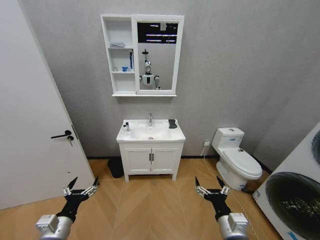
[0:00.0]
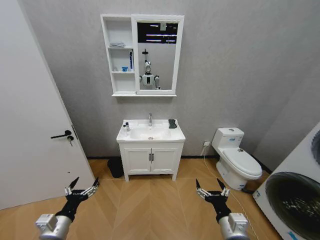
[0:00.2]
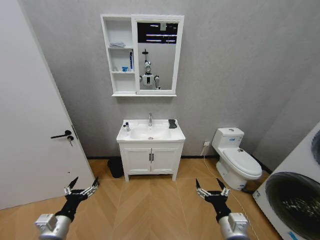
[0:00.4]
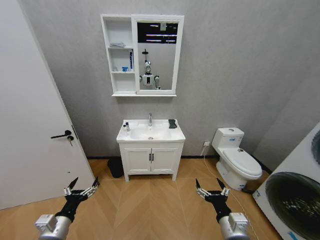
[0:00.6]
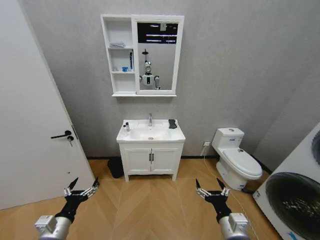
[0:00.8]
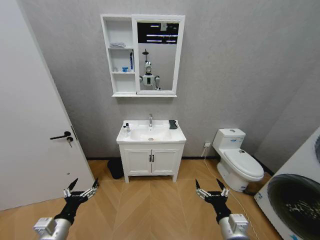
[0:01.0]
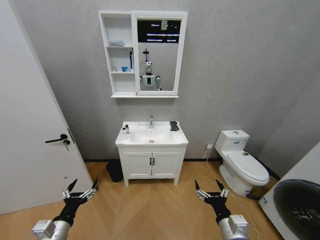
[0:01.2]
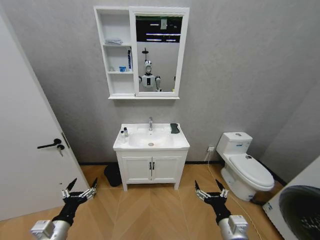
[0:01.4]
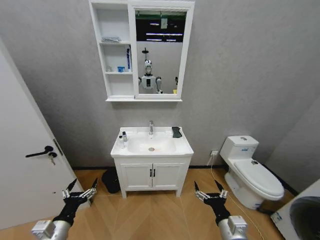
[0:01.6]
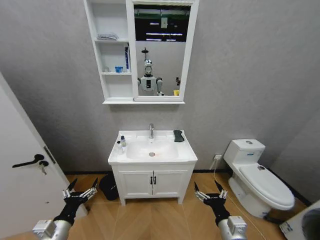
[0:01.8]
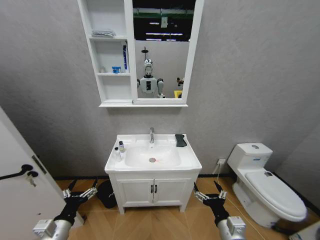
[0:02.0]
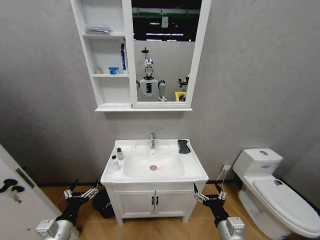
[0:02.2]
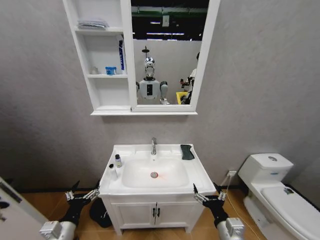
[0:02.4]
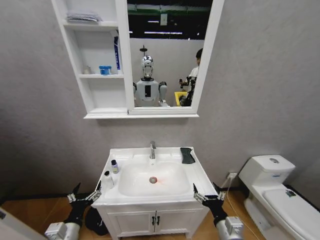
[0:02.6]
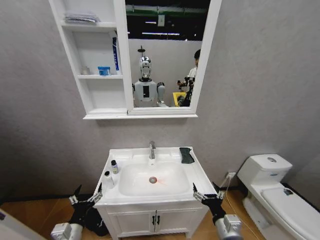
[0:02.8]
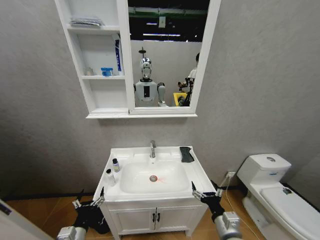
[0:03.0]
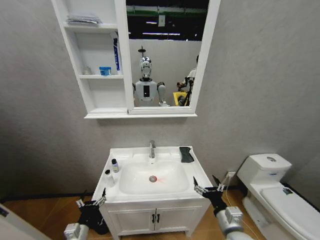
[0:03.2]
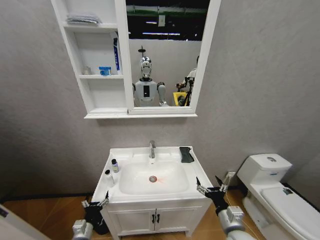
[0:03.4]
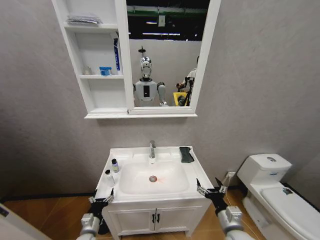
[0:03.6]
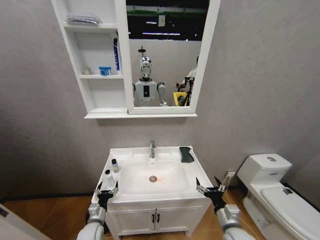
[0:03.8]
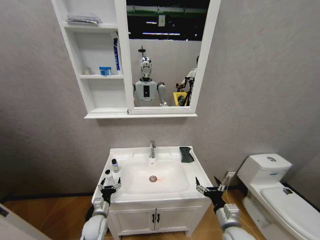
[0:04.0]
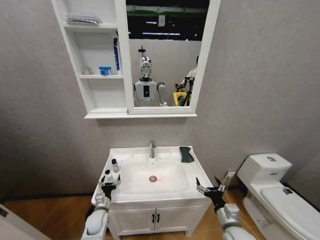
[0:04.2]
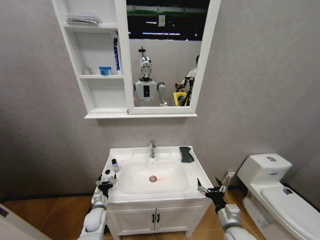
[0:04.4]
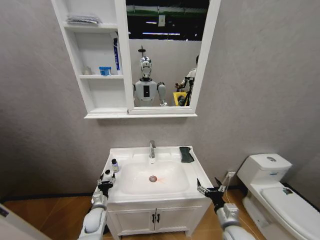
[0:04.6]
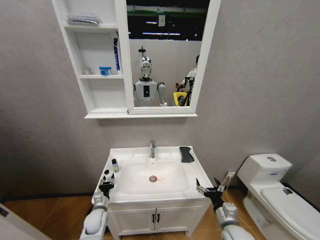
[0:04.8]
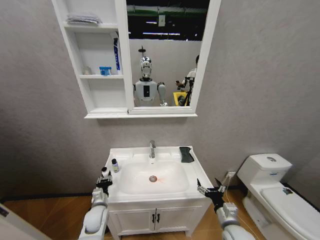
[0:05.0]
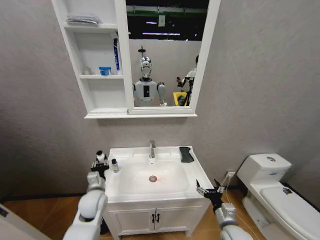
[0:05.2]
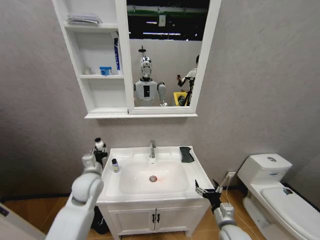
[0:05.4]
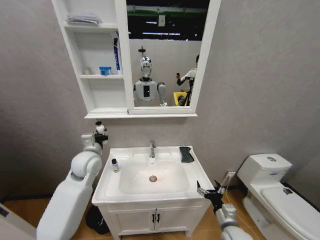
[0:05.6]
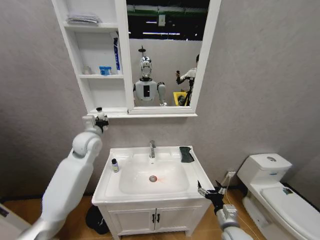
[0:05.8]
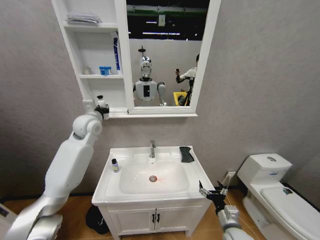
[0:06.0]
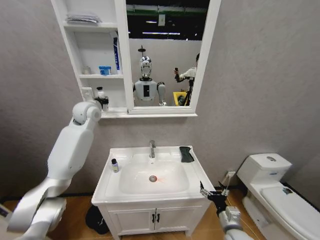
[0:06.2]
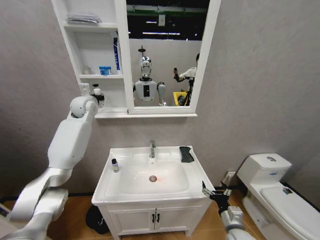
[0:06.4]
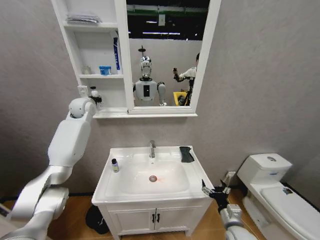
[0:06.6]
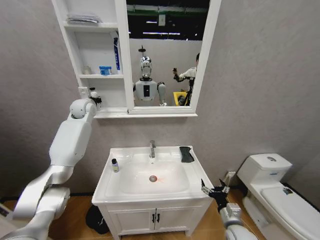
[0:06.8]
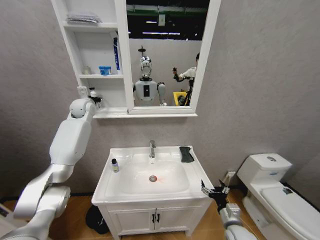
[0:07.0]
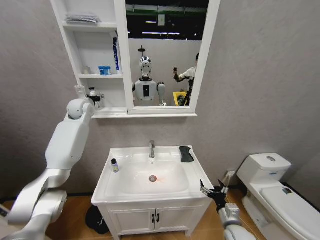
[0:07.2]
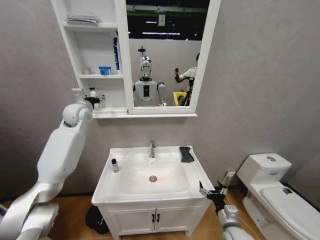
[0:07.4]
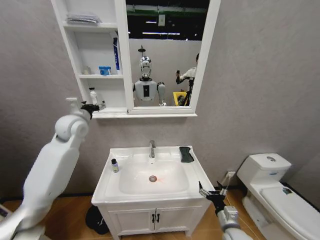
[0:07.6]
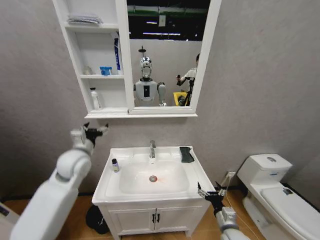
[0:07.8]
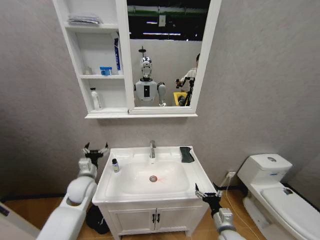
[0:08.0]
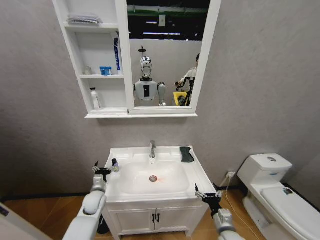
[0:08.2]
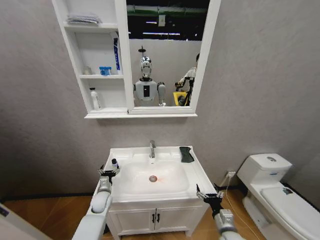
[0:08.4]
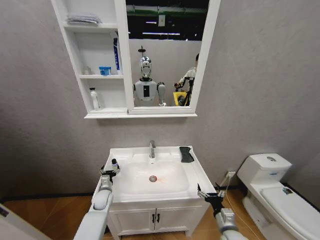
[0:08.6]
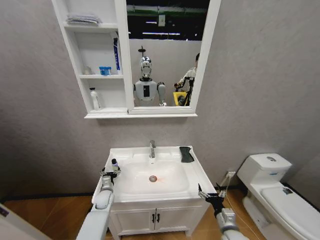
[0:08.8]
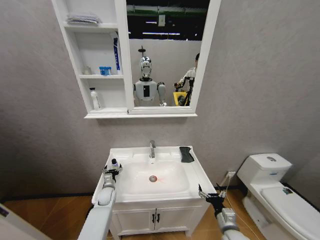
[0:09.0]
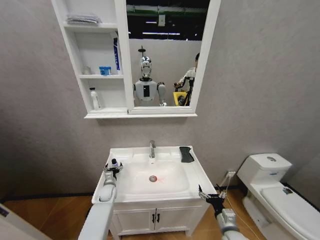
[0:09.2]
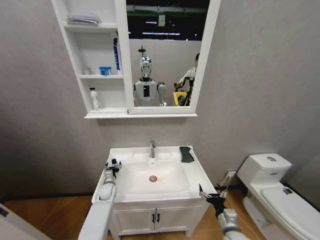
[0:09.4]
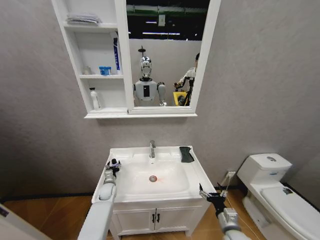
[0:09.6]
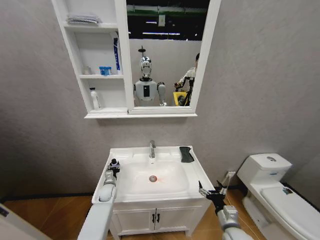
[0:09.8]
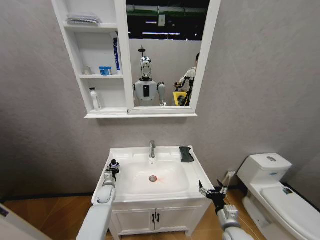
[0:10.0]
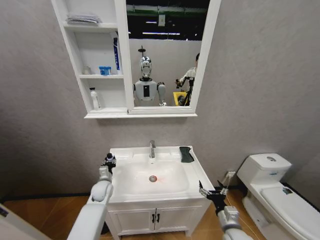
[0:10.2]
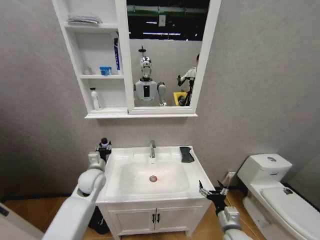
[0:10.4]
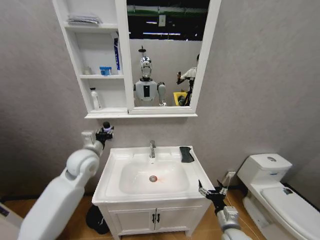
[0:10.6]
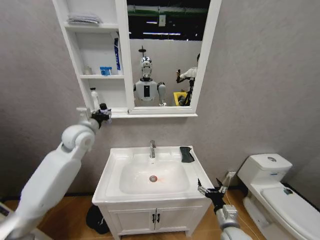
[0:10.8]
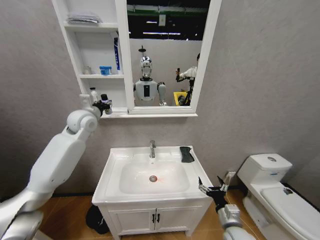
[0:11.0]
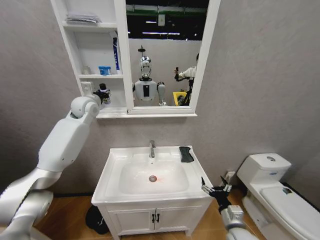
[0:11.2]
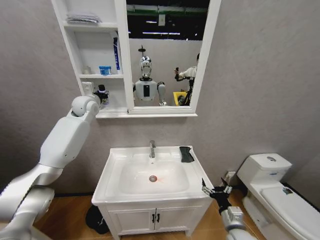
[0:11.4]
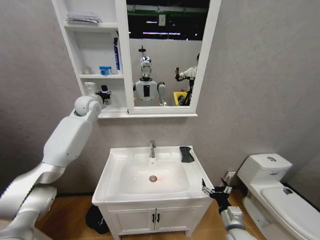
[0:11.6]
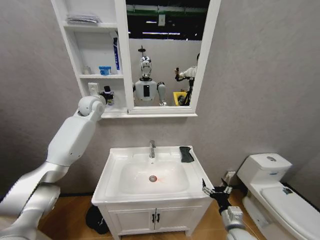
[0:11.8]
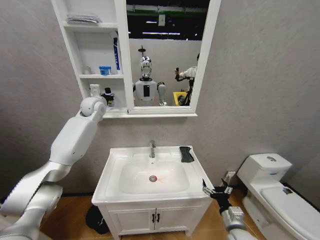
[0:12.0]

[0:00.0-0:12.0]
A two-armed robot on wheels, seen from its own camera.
Task of the whole recording: Move facial cleanser and shampoo from washbasin to cabinet, then wipe washbasin with towel.
0:01.6 to 0:03.0: The left gripper is displaced downward by approximately 10 cm.
0:03.0 to 0:04.4: The right gripper moves roughly 5 cm; the left gripper goes about 20 cm forward and downward.
0:04.4 to 0:06.0: The left gripper shifts roughly 40 cm upward, and closes its fingers.
0:06.0 to 0:07.6: The left gripper travels backward by some 5 cm, and opens up.
0:07.6 to 0:09.0: The left gripper travels downward by some 40 cm.
0:09.0 to 0:10.4: The left gripper shifts some 20 cm upward, and closes.
0:10.4 to 0:12.0: The left gripper travels upward and forward by approximately 30 cm.

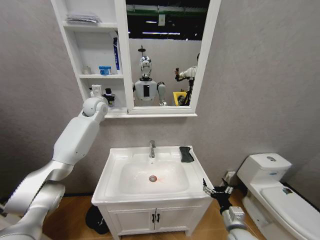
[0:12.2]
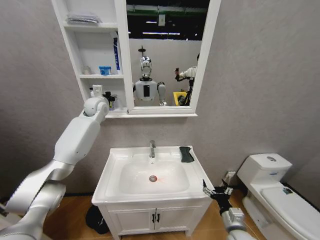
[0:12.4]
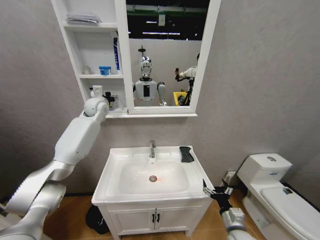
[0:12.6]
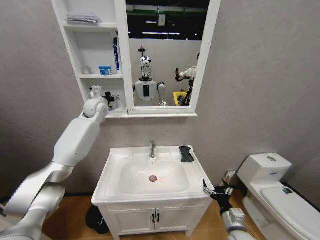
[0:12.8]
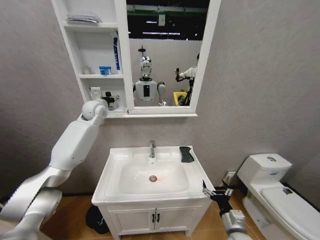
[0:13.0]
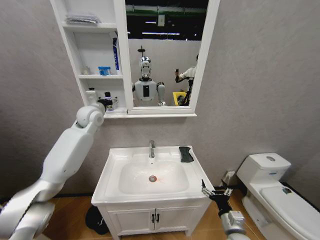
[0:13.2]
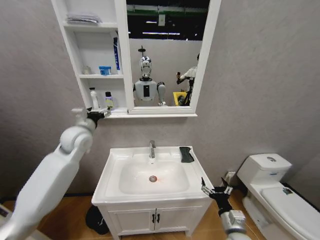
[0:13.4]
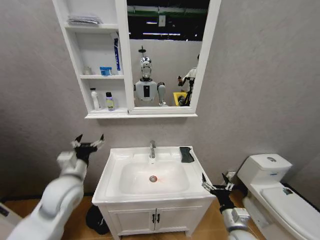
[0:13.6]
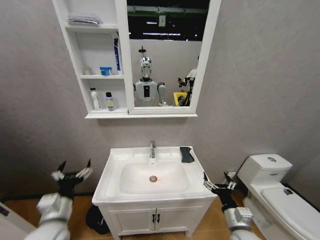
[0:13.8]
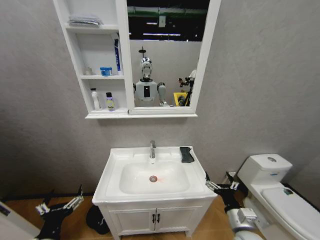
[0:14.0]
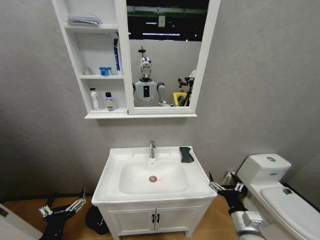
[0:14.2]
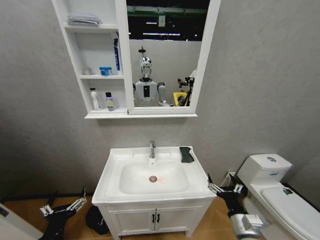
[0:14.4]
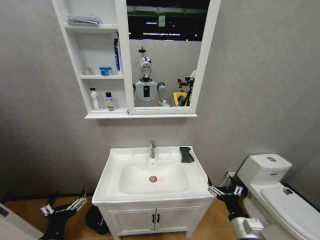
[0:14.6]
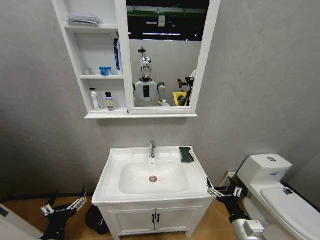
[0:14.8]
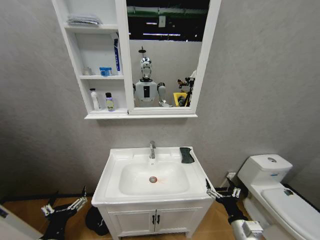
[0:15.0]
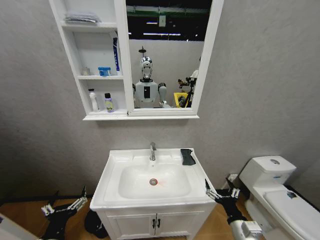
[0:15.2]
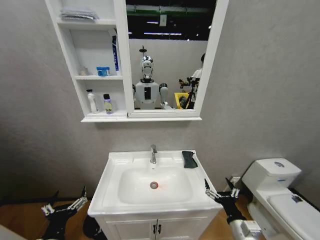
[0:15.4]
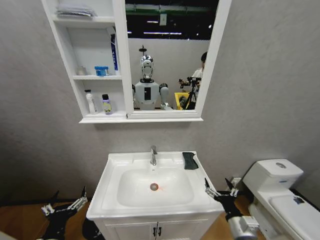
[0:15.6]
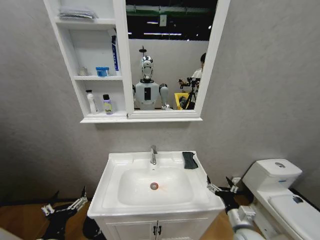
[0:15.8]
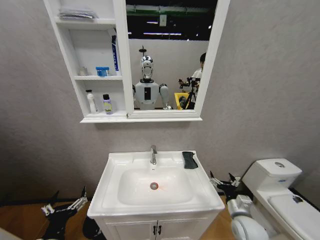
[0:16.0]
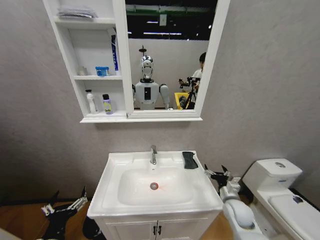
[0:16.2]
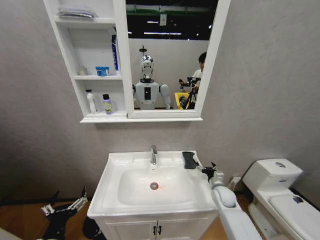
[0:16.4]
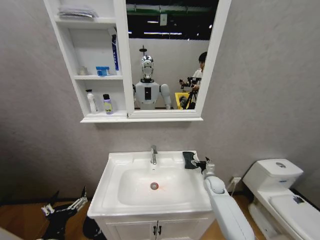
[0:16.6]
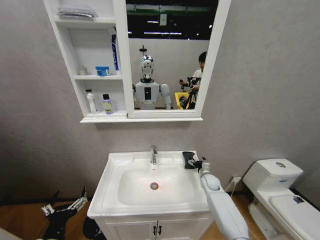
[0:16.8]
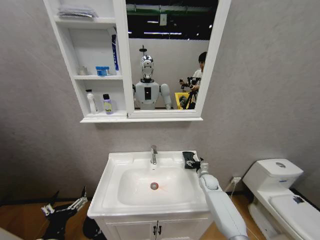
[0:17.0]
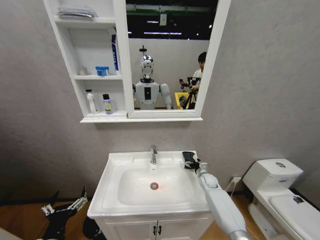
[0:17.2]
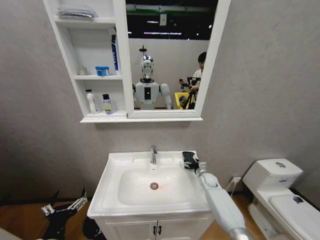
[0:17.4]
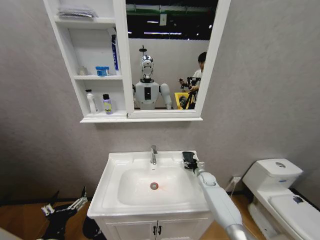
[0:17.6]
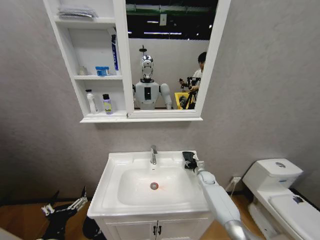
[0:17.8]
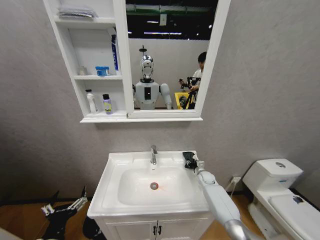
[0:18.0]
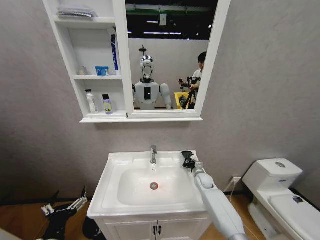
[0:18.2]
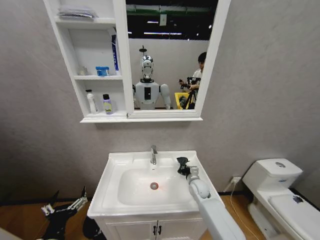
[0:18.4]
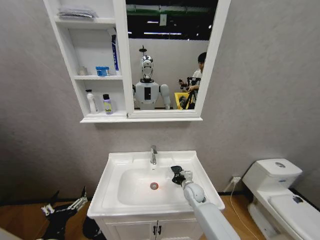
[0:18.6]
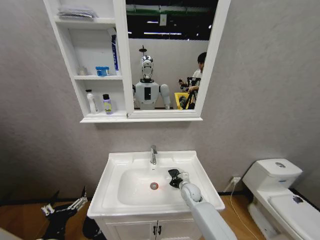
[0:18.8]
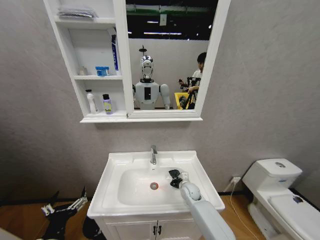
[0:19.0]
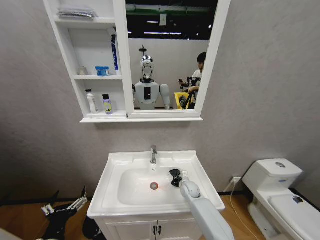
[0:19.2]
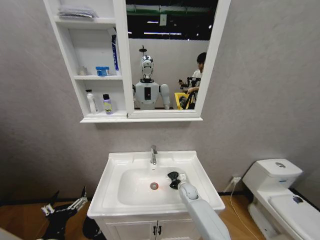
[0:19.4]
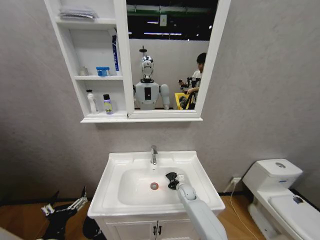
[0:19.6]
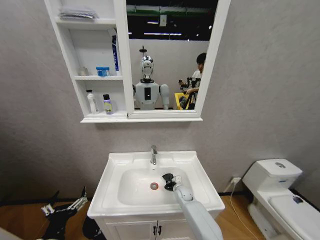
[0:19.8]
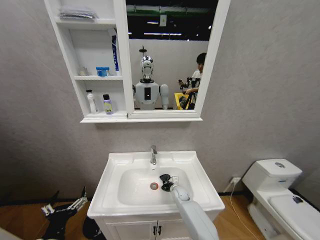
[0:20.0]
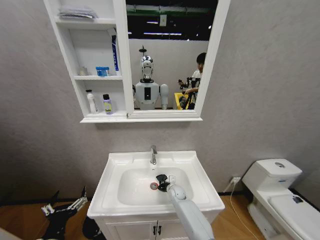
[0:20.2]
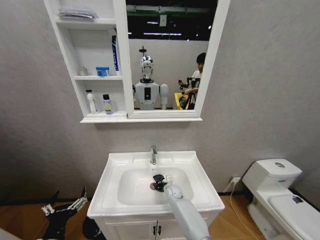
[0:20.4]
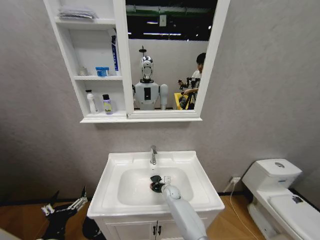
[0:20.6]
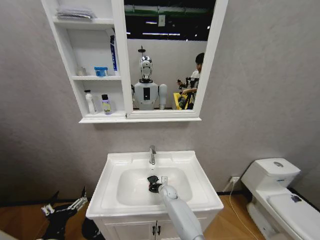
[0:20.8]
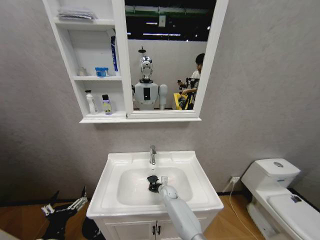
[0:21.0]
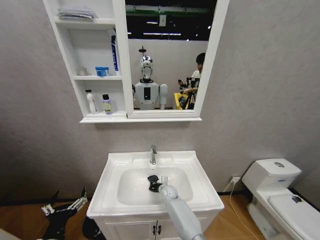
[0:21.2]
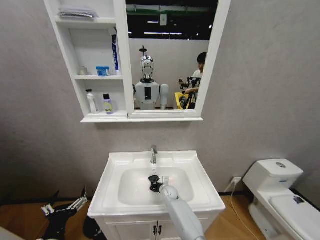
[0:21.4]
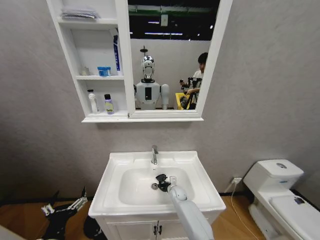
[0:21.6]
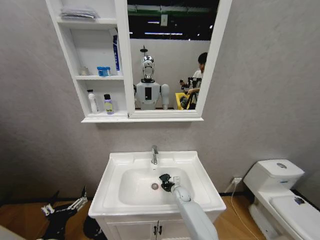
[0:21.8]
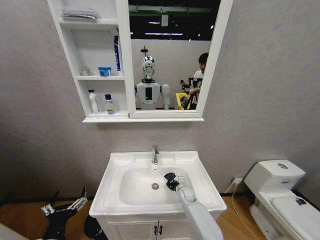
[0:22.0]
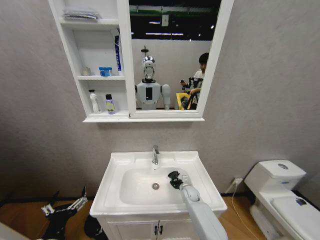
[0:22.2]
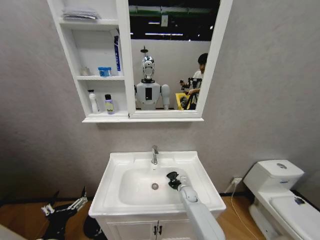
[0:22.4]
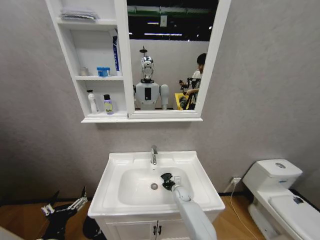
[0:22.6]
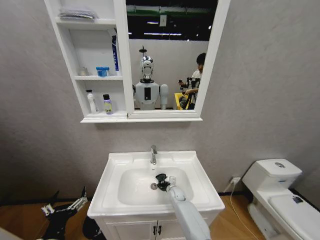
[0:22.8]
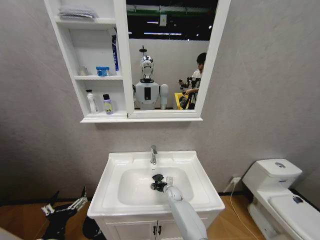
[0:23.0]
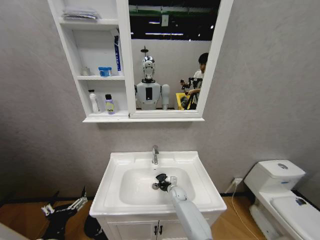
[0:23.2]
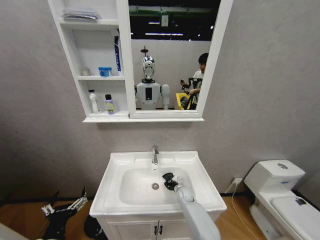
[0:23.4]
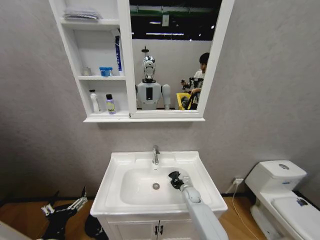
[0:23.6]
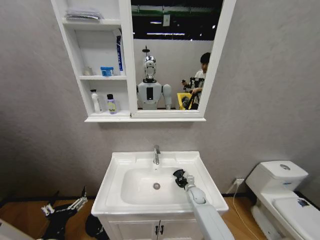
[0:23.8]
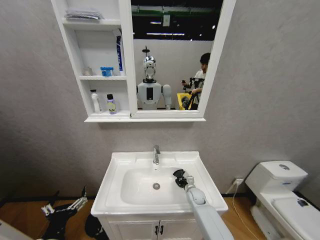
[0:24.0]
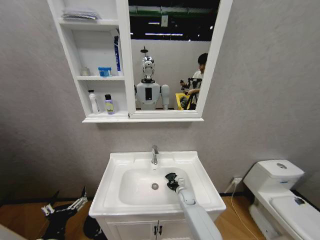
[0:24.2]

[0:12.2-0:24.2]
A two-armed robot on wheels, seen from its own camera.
Task of the whole recording: Move facial cleanser and shampoo from washbasin to cabinet, then wipe washbasin with towel.
0:12.2 to 0:13.8: The left gripper goes about 40 cm backward and downward, and opens.
0:13.8 to 0:15.2: The left gripper goes approximately 10 cm backward.
0:15.2 to 0:16.6: The right gripper heads forward, covering about 30 cm.
0:16.6 to 0:18.2: The right gripper changes place by roughly 5 cm, and closes its fingers.
0:18.2 to 0:19.8: The right gripper travels to the left and downward by about 15 cm.
0:19.8 to 0:21.2: The right gripper heads to the left, covering some 10 cm.
0:21.2 to 0:22.6: The right gripper travels to the right by roughly 5 cm.
0:22.6 to 0:24.2: The right gripper heads to the right, covering some 5 cm.
